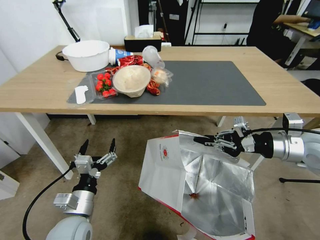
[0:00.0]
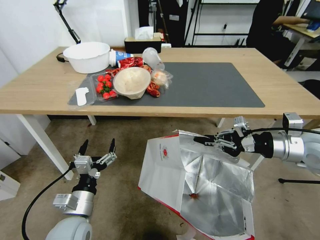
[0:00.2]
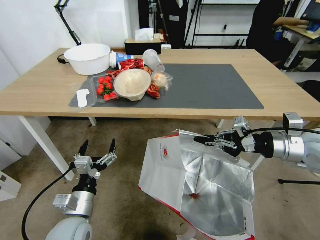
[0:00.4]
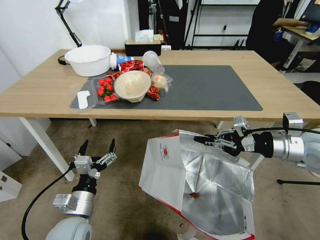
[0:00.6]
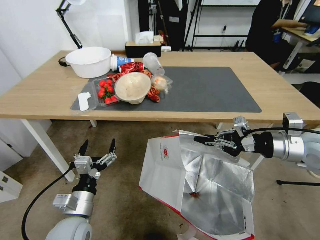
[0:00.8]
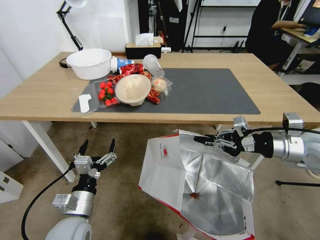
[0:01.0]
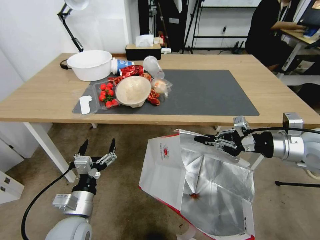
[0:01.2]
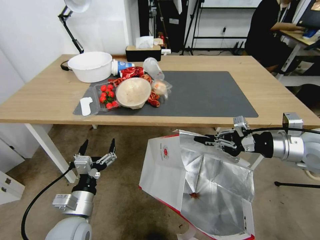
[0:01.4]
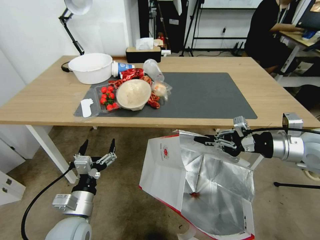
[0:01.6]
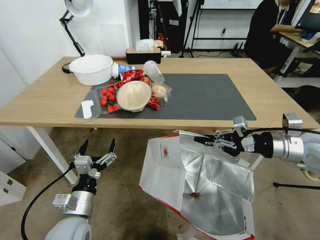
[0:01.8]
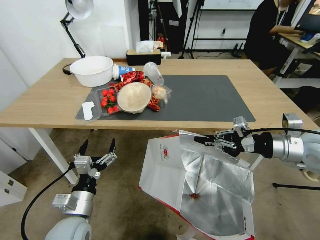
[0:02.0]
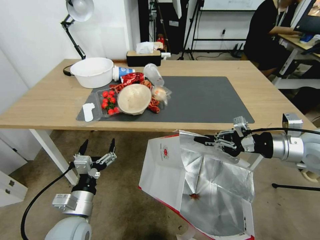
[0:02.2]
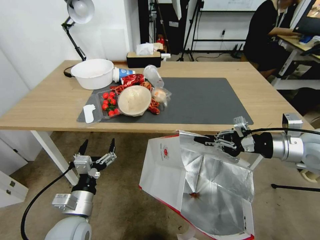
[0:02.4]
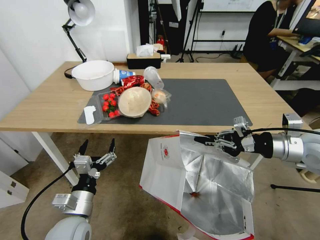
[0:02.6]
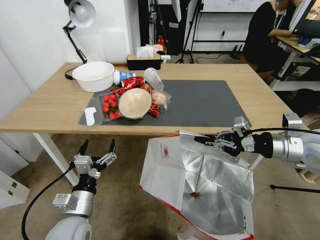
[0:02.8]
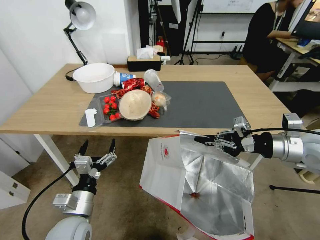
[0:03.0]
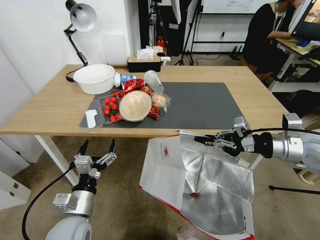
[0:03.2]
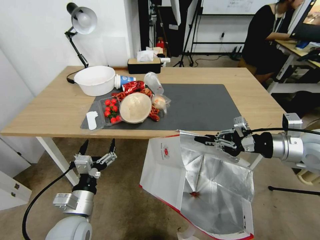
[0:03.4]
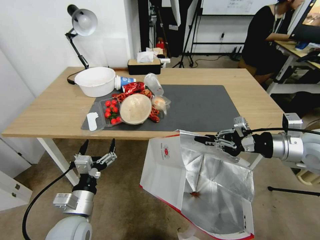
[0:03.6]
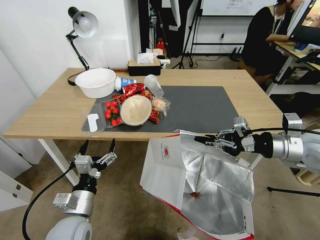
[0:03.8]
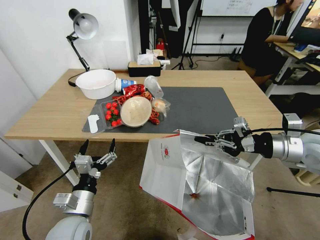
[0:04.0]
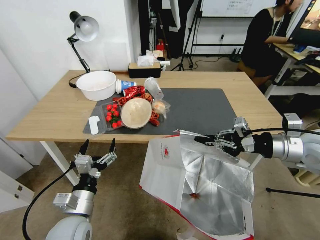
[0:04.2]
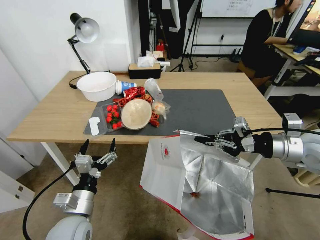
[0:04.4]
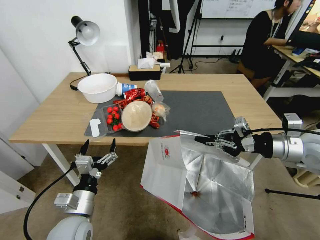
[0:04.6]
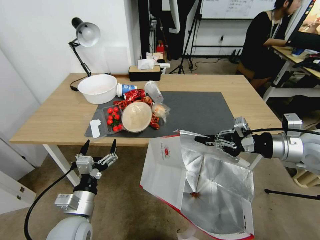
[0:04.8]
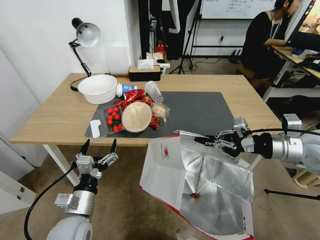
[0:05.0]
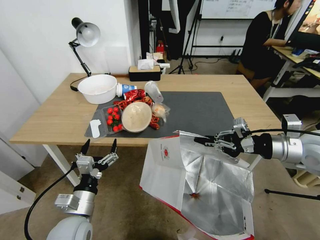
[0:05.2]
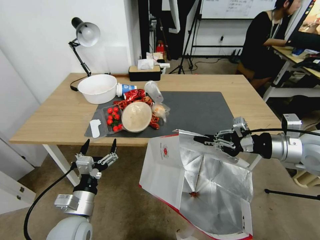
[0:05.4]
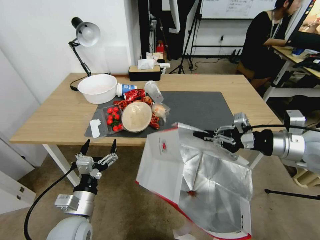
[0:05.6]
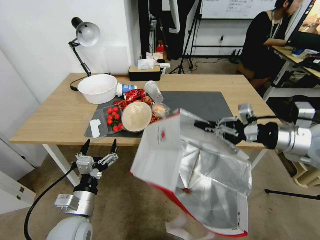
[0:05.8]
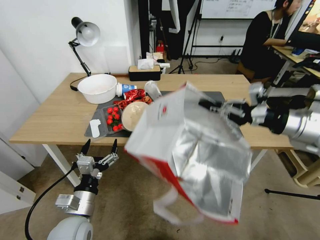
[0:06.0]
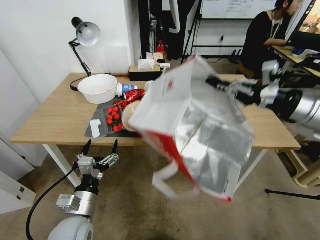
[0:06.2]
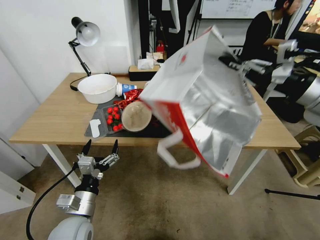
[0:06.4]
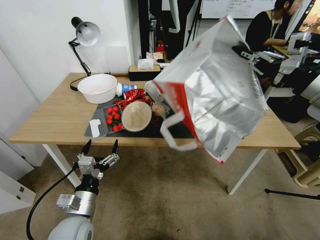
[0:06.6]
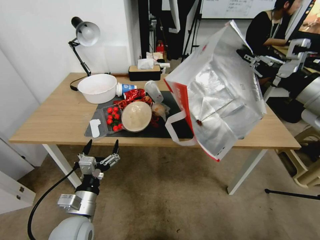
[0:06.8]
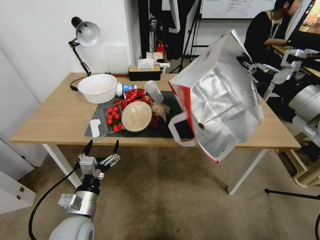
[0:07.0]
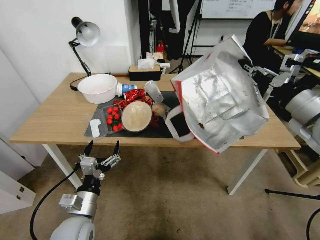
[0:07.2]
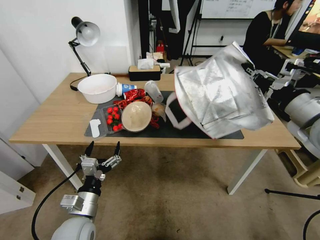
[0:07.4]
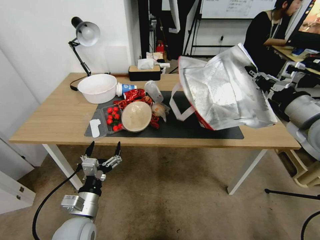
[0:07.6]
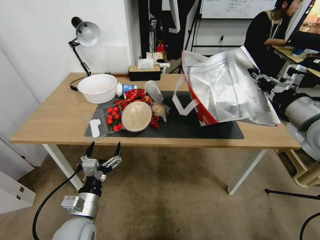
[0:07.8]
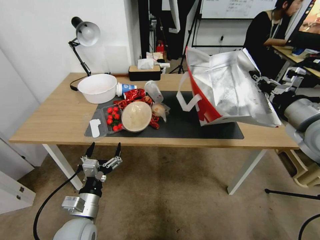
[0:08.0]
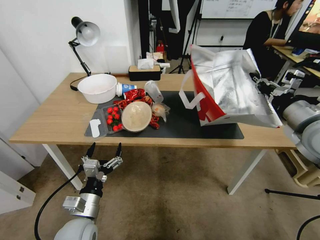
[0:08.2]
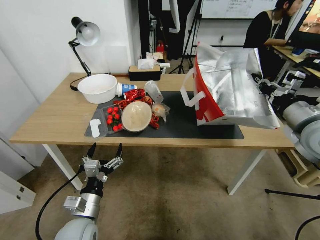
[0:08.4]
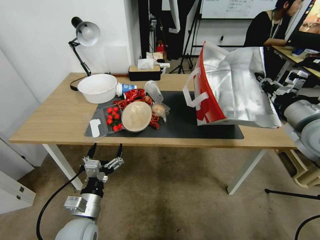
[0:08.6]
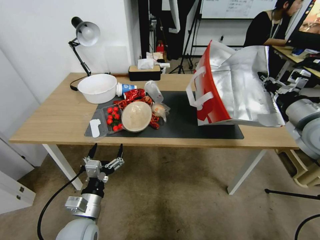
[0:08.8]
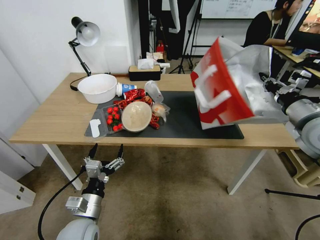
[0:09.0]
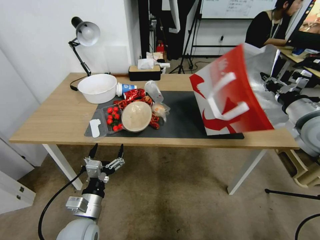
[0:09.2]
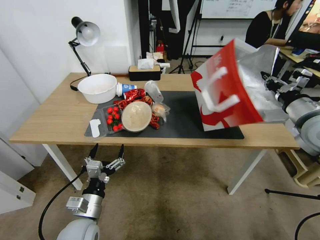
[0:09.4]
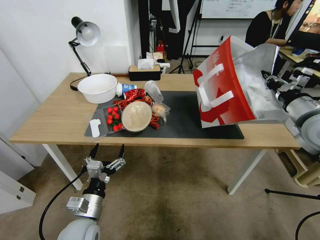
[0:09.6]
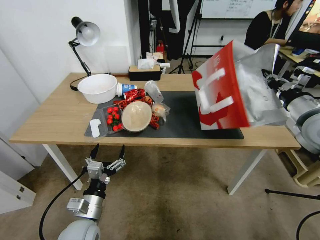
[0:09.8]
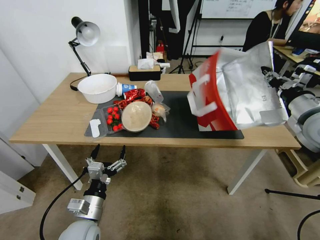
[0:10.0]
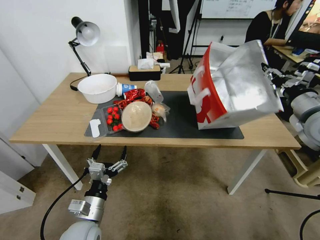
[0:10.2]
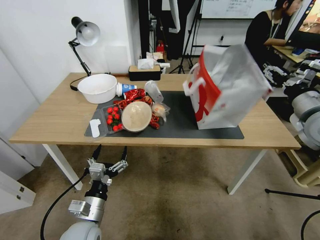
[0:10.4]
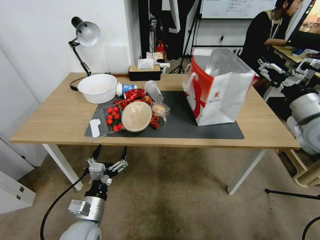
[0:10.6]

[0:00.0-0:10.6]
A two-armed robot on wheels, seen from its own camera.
Task of the whole recording: Pick up the food delivery bag from the floor and place it on the table.
0:06.0 to 0:07.6: The right gripper moves roughly 10 cm upward and comes back.
0:07.6 to 0:09.0: The grippers make only small movements.
0:09.0 to 0:10.6: The right gripper opens.

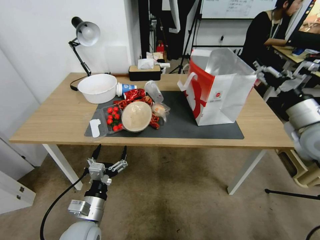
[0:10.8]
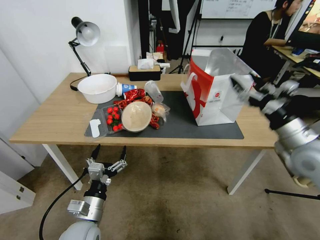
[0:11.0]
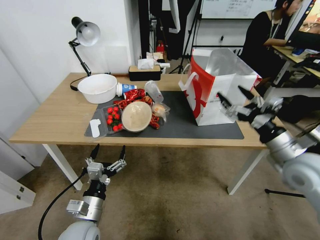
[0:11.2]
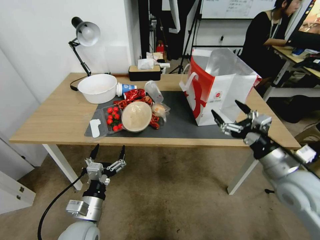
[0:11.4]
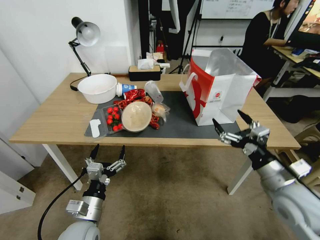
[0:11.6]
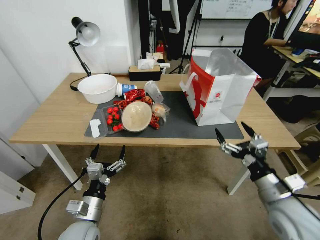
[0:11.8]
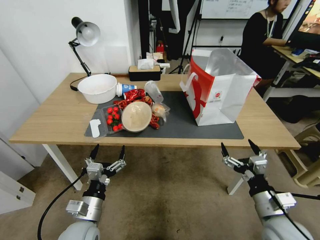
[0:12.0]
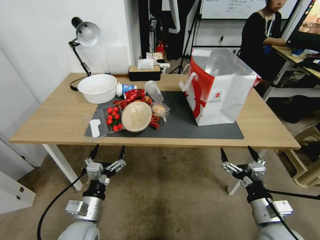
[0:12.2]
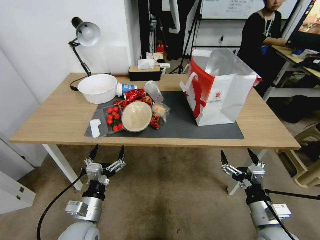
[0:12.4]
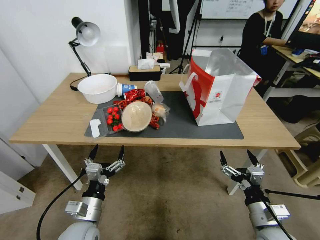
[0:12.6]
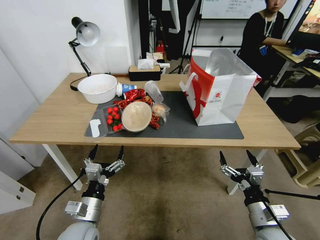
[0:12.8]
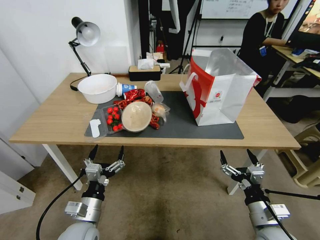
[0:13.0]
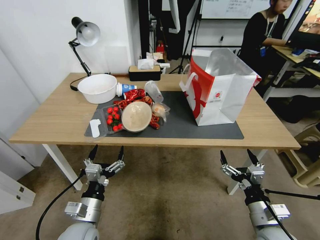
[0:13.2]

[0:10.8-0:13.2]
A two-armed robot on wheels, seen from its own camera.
Task of the whole recording: Pick up the food delivery bag from the floor and place it on the table.
0:10.8 to 0:12.0: The right gripper shifts some 25 cm downward and backward.
0:12.0 to 0:13.2: The grippers move only a little.

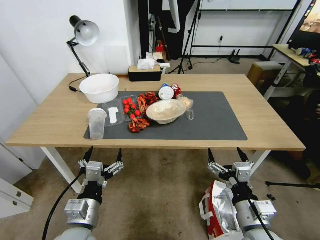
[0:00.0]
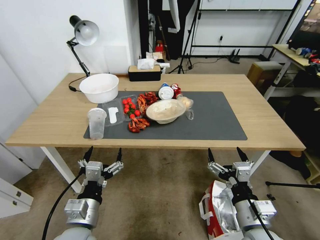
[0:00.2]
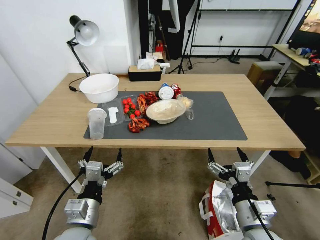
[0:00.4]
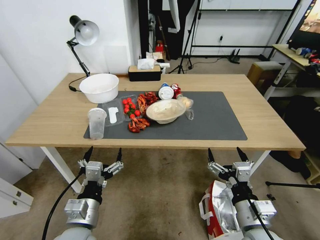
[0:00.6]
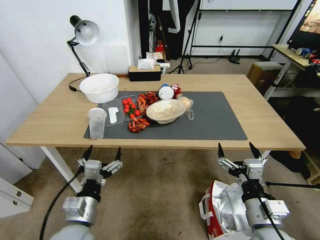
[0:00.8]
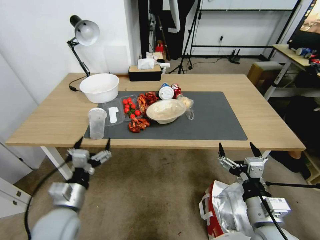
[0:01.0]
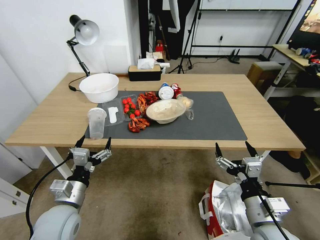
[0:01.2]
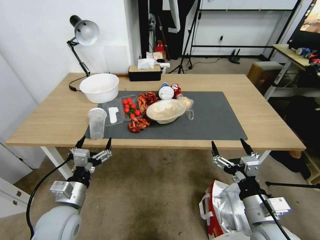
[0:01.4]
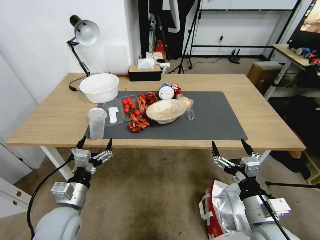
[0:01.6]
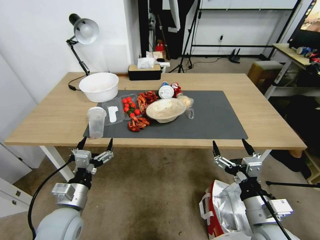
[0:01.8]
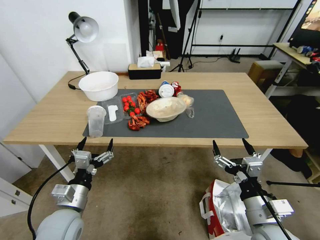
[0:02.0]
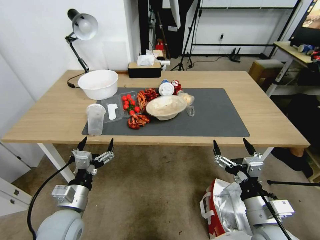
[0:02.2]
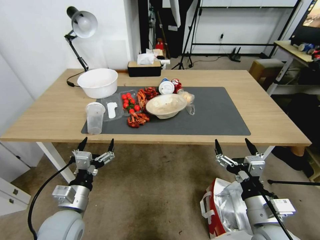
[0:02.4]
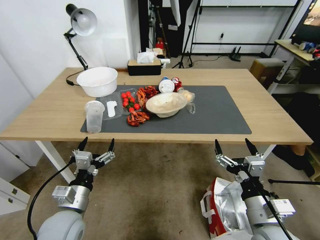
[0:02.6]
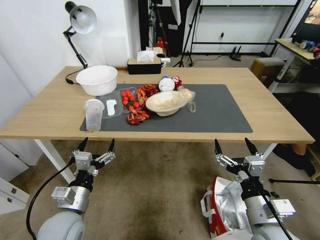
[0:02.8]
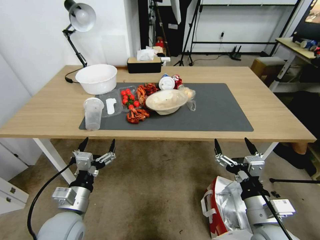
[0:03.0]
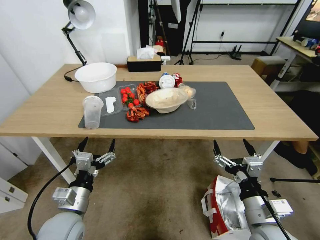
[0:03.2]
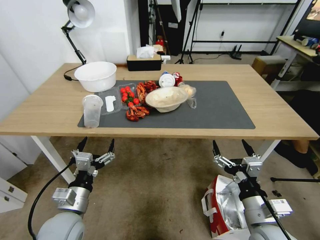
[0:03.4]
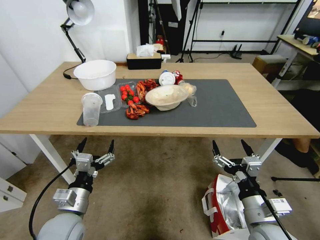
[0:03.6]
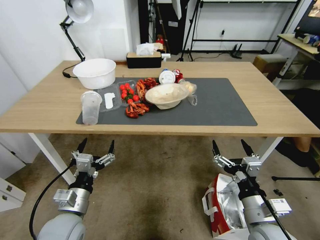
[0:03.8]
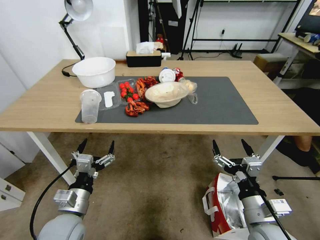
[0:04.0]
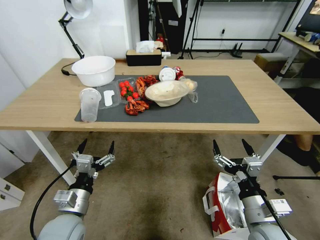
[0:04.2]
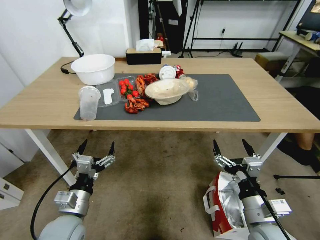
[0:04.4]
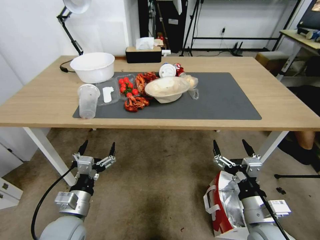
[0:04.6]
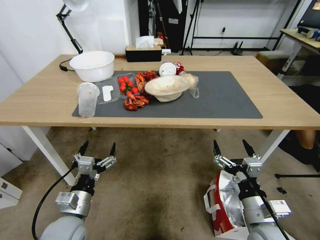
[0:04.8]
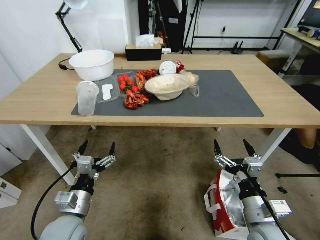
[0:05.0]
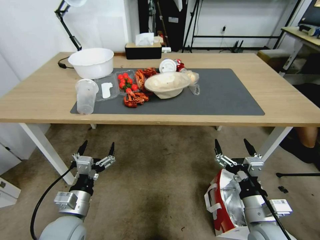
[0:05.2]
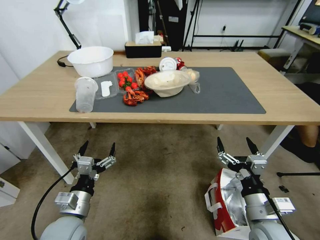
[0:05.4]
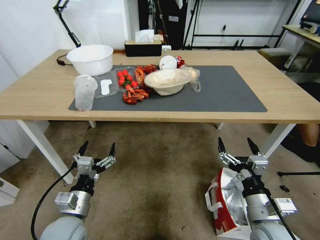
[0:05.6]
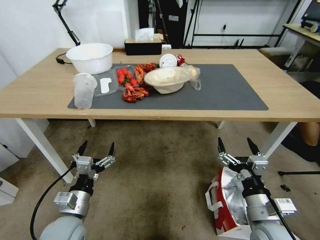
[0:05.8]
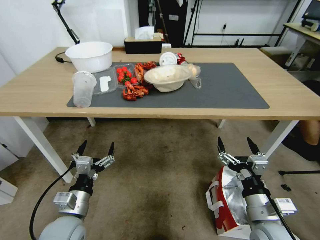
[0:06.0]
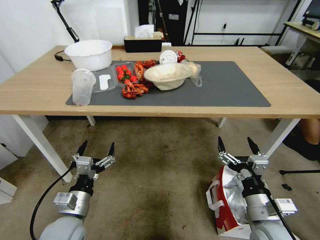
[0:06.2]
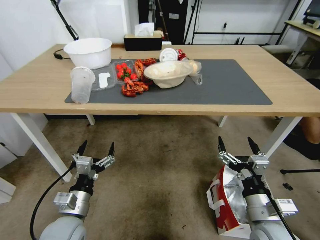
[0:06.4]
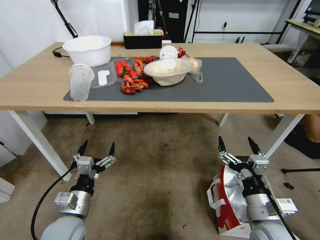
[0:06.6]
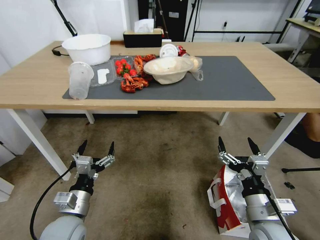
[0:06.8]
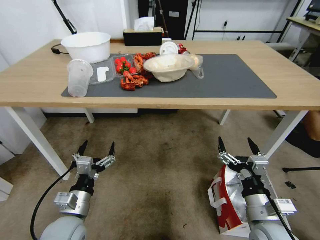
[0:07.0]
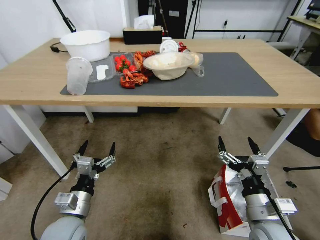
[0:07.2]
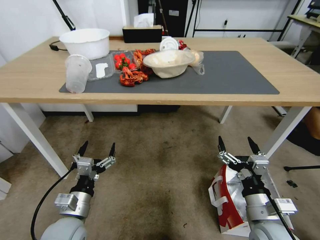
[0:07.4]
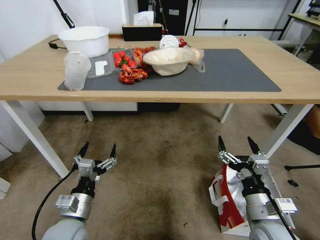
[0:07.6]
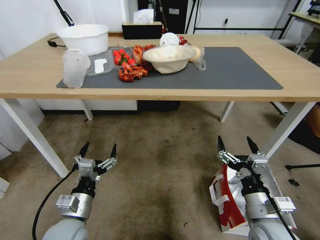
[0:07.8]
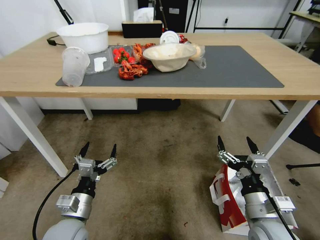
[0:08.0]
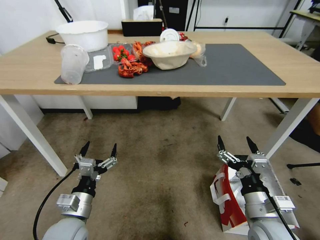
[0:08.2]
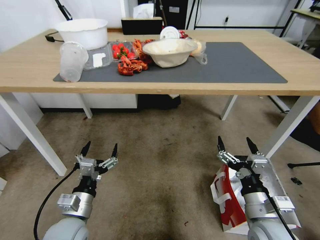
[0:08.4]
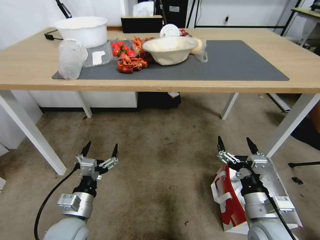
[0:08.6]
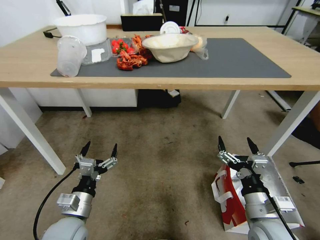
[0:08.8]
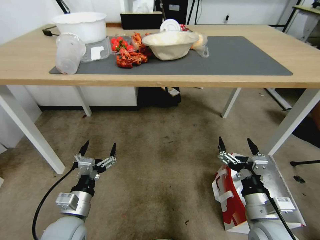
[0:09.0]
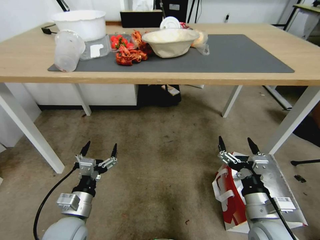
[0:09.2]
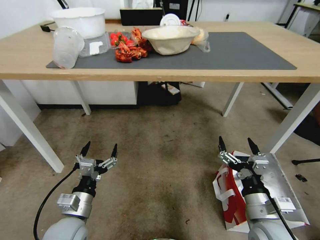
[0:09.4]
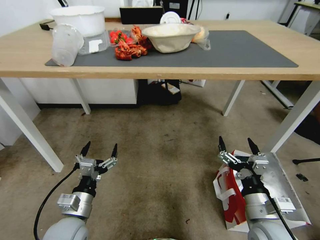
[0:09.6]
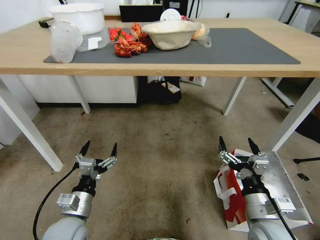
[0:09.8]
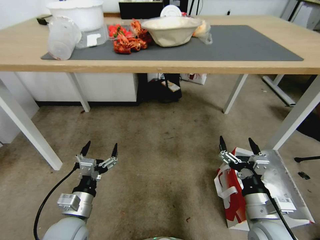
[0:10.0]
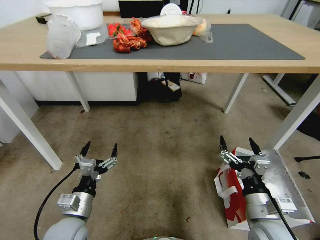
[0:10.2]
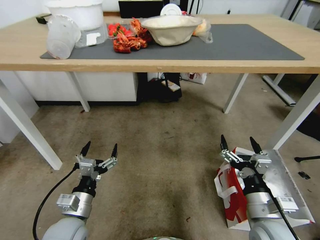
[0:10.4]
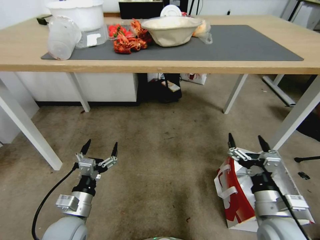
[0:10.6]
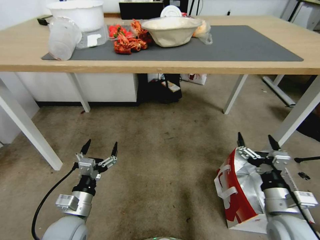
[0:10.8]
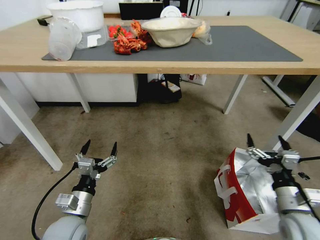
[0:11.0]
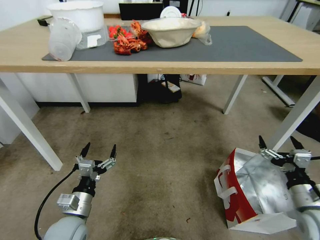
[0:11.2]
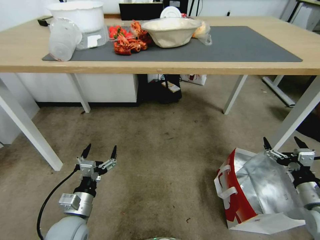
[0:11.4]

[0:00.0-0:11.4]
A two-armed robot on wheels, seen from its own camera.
Task of the whole recording: Pick up the food delivery bag from the floor and place it on the table.
0:10.0 to 0:11.4: The right gripper travels to the right by roughly 20 cm.
